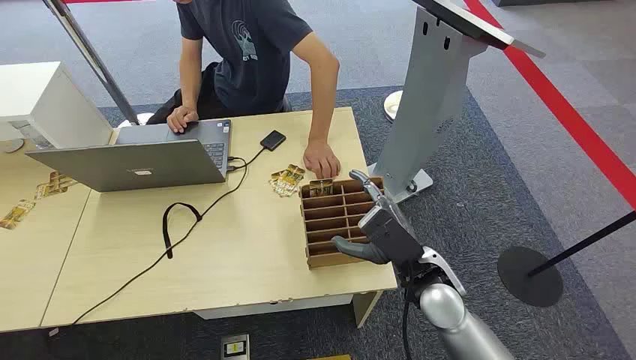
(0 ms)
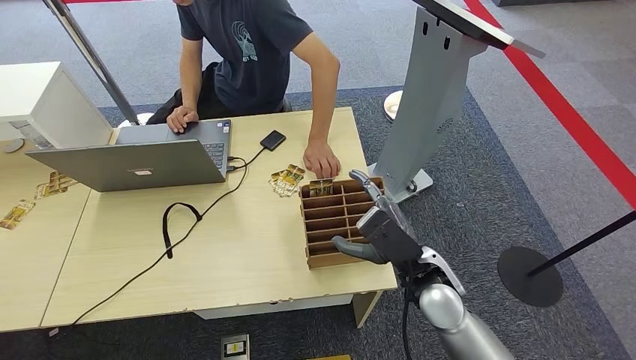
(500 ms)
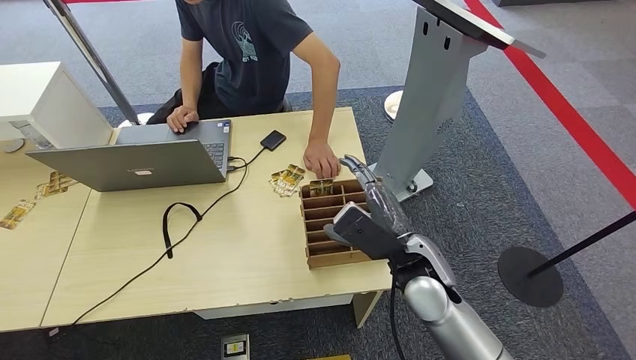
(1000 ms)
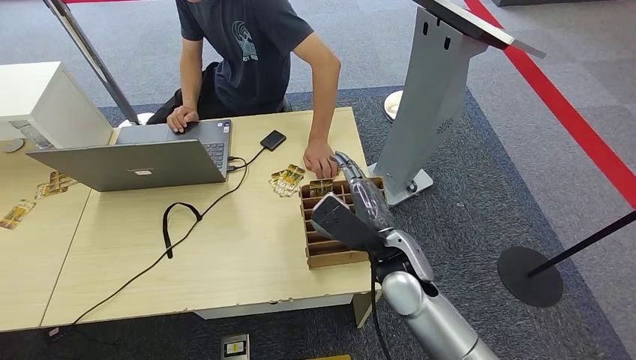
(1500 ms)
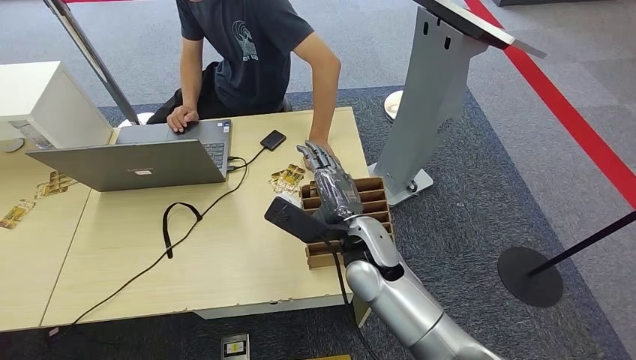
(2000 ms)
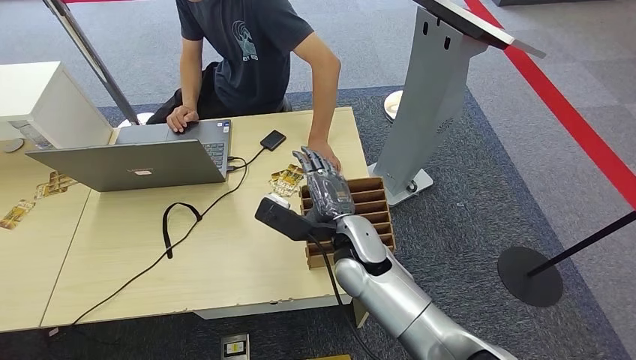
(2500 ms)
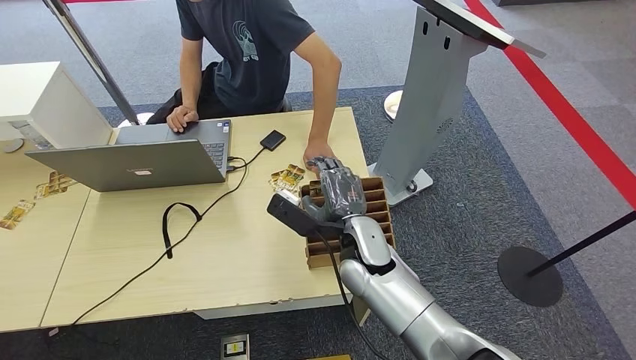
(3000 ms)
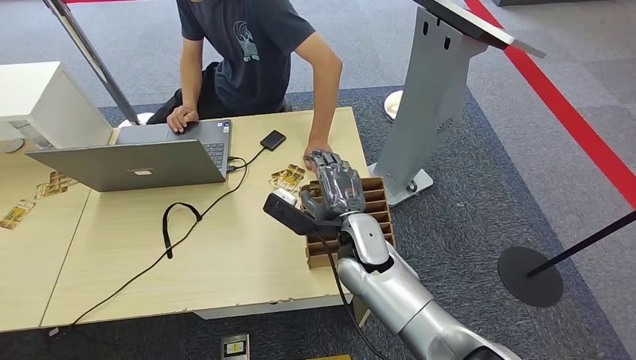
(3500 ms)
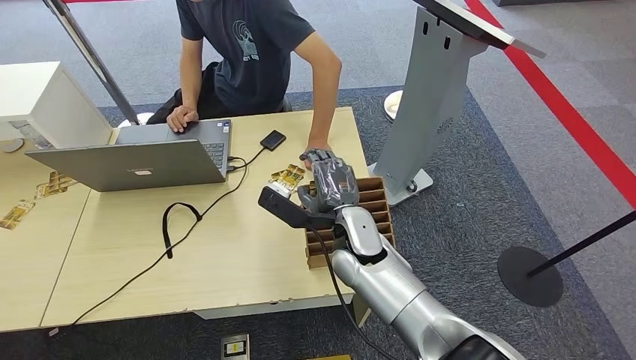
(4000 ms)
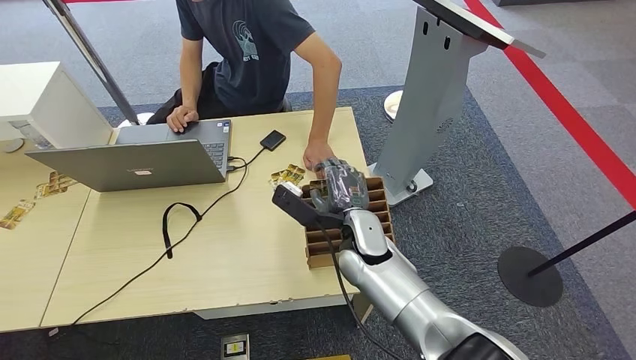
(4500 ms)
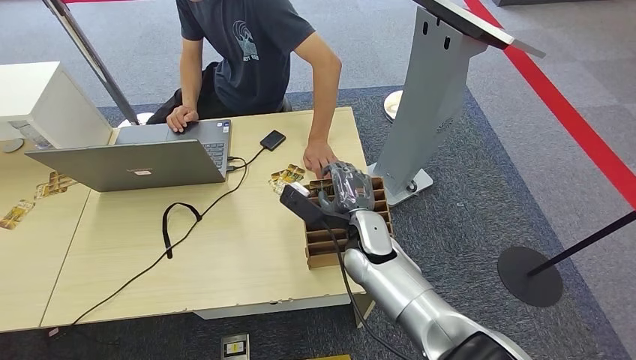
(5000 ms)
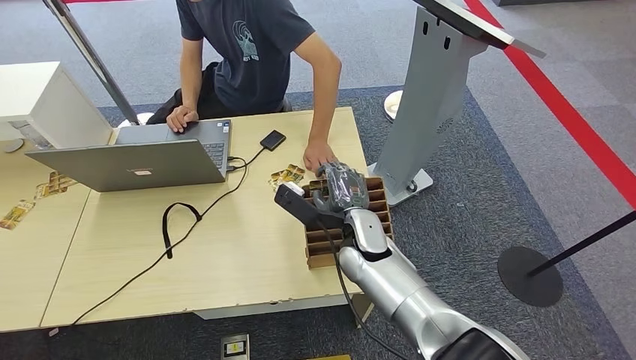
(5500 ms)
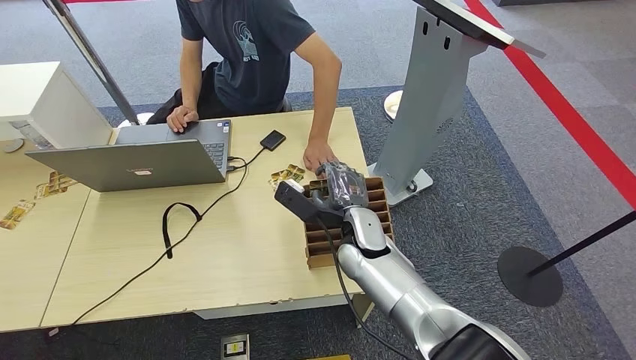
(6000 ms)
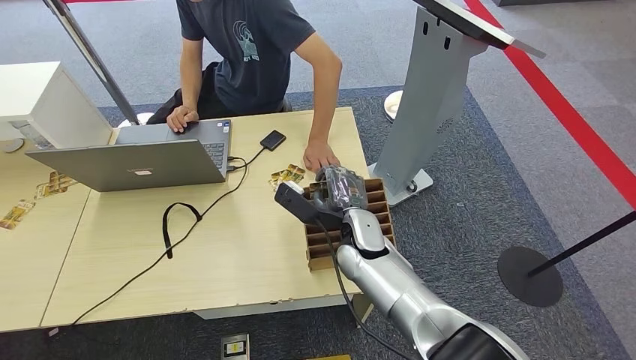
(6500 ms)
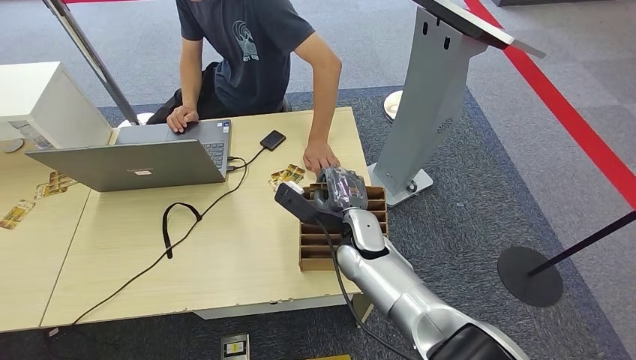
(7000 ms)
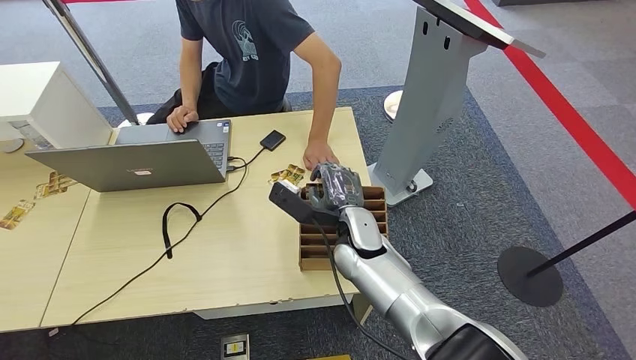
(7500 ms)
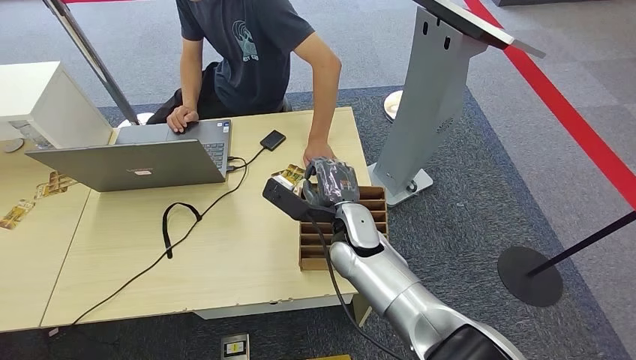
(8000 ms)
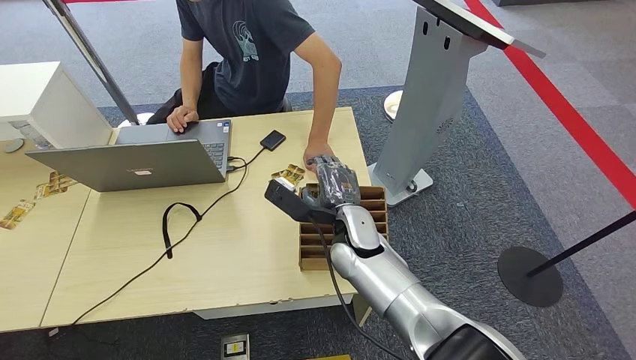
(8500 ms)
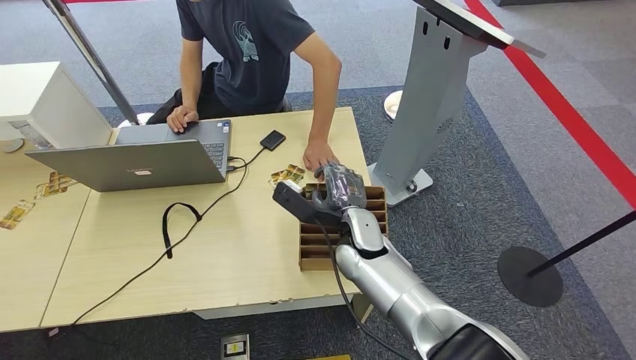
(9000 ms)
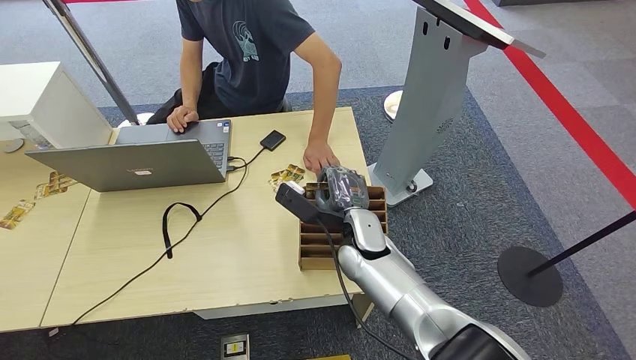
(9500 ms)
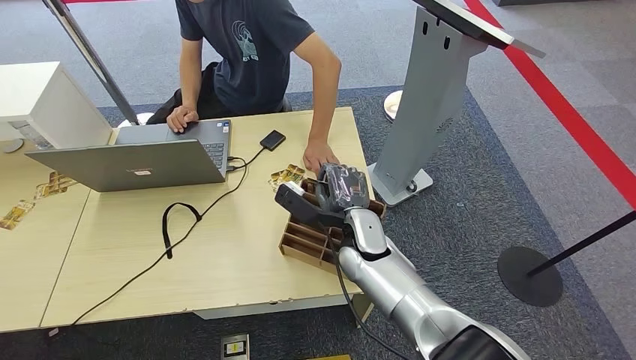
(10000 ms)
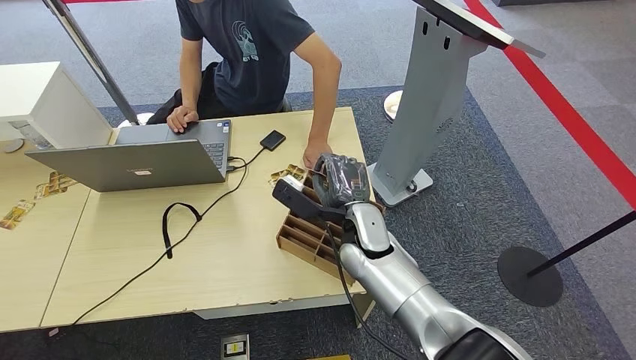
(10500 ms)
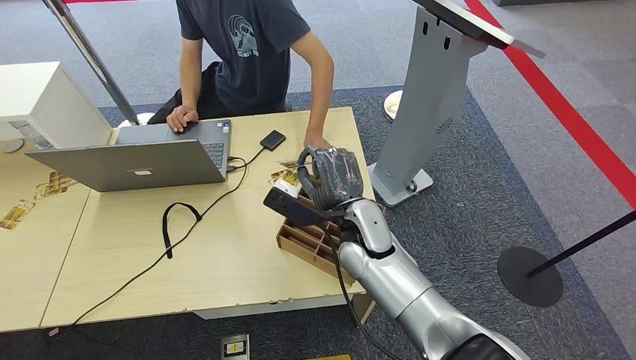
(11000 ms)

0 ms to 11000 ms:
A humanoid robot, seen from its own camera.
Step, 0 ms to 10000 ms: Pick up the key card from the card box.
Step, 10500 ms to 11000 ms: Hand the key card to the target.
2000 ms to 3500 ms: The hands make only small movements.
3500 ms to 5500 ms: The hands make only small movements.
5500 ms to 7500 ms: The two hands keep their place.
7500 ms to 9000 ms: The hands stay close to where they were, moving slightly.

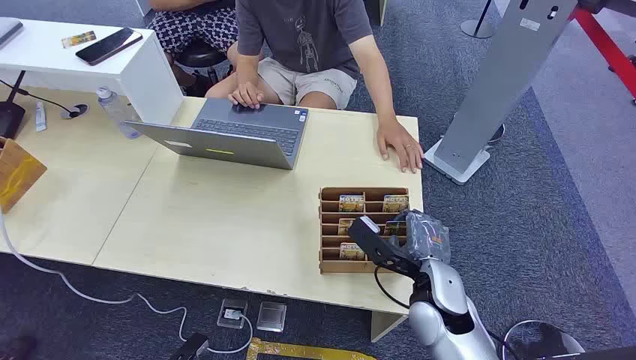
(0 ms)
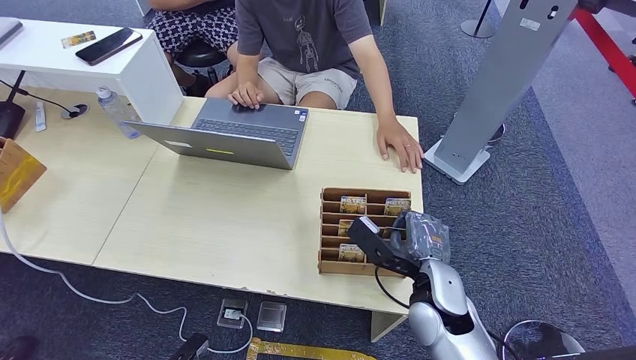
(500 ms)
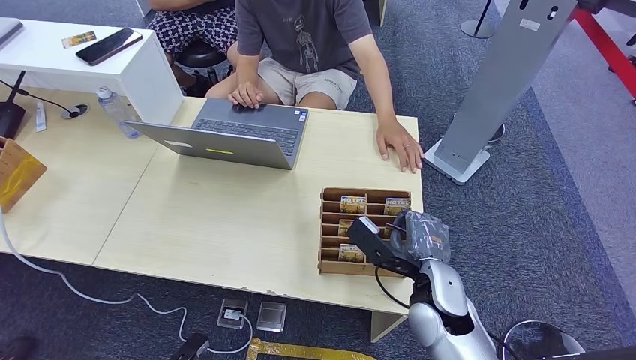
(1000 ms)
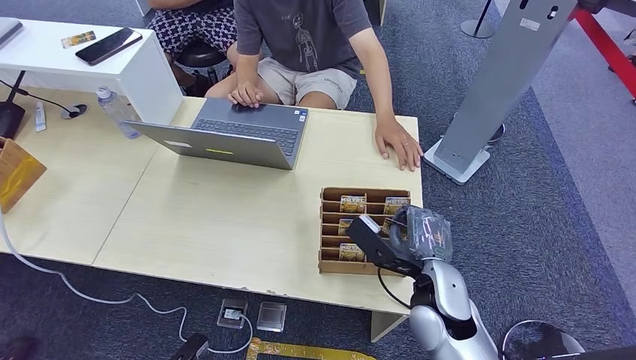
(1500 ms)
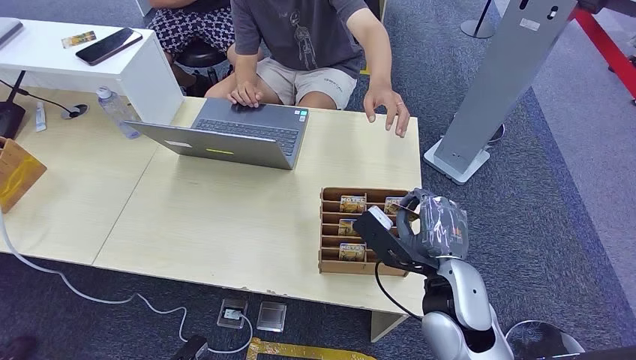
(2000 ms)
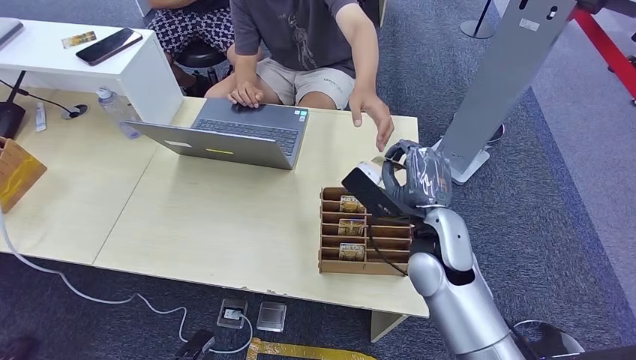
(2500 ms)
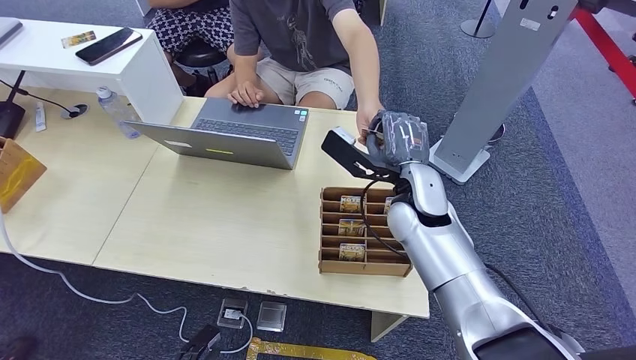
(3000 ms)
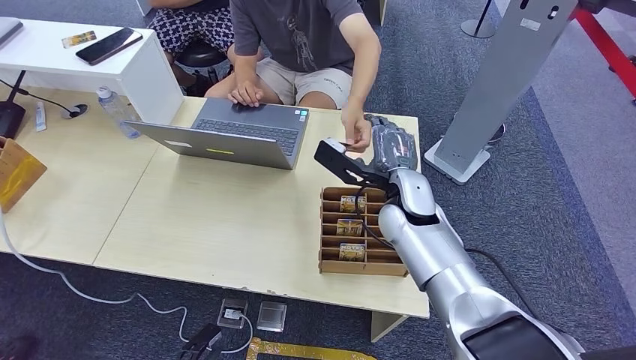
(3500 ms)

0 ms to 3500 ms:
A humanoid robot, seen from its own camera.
Step, 0 ms to 2000 ms: Pick up the key card from the card box.
Step, 2500 ms to 3500 ms: Hand the key card to the target.
2000 ms to 3500 ms: The right hand shifts some 15 cm forward.
